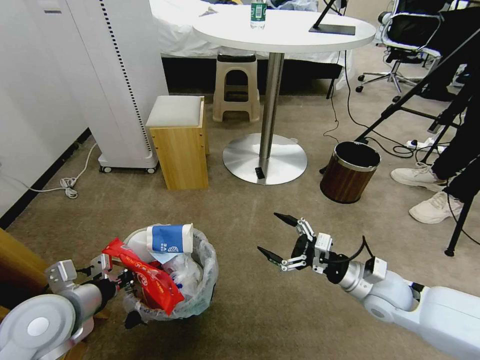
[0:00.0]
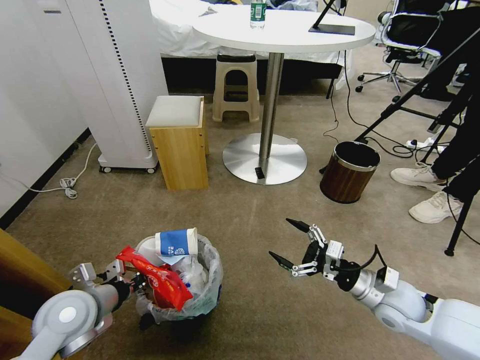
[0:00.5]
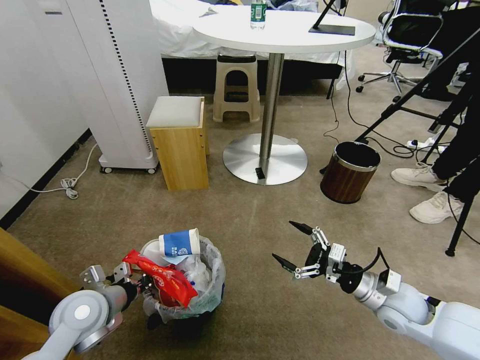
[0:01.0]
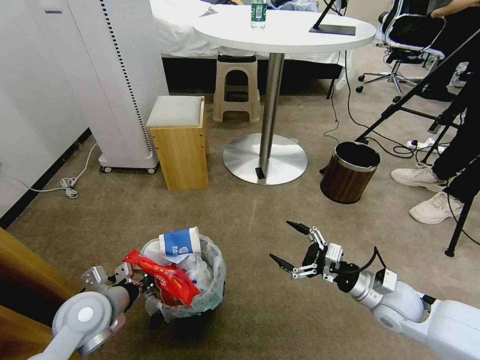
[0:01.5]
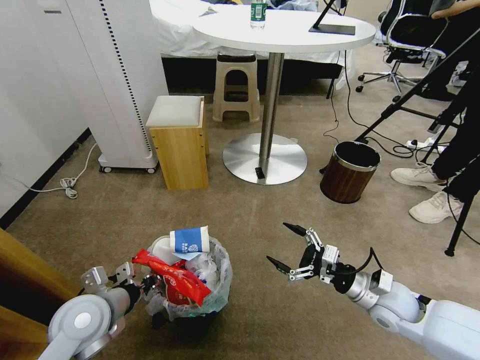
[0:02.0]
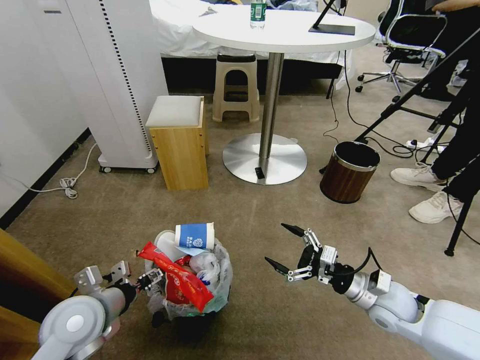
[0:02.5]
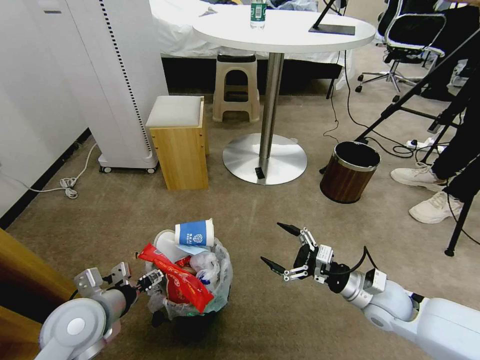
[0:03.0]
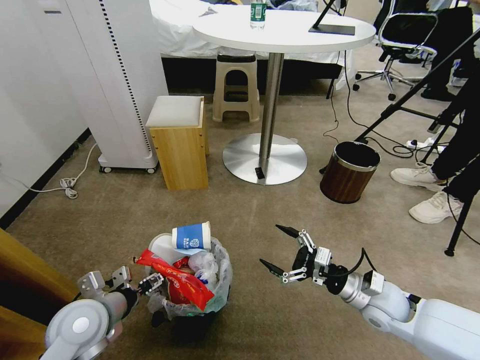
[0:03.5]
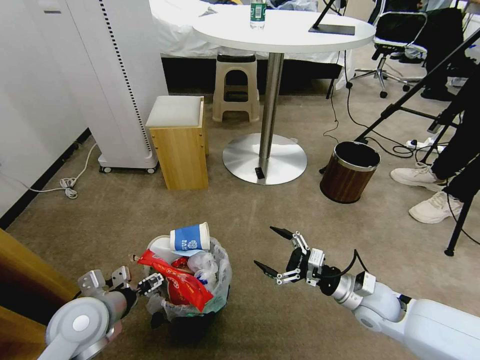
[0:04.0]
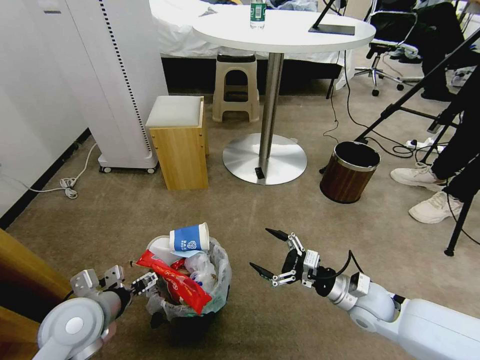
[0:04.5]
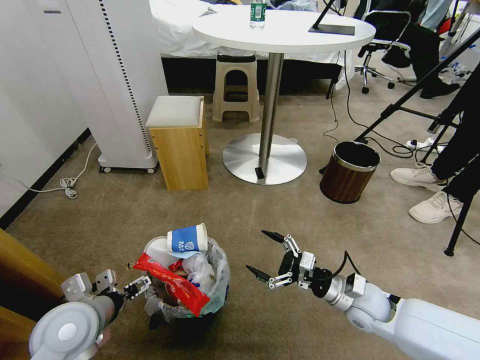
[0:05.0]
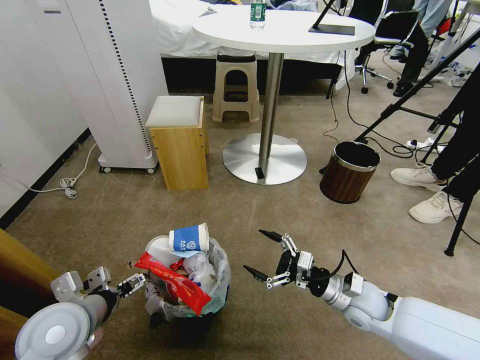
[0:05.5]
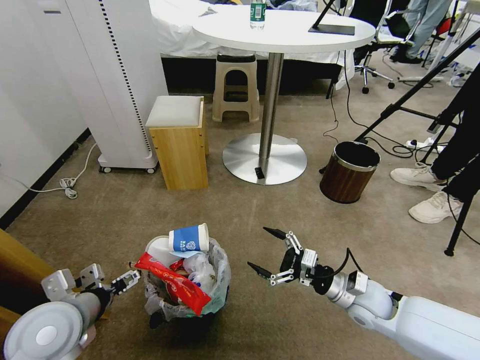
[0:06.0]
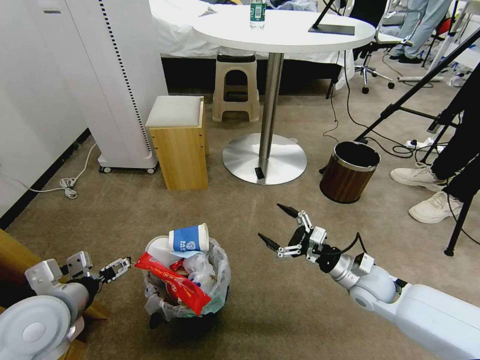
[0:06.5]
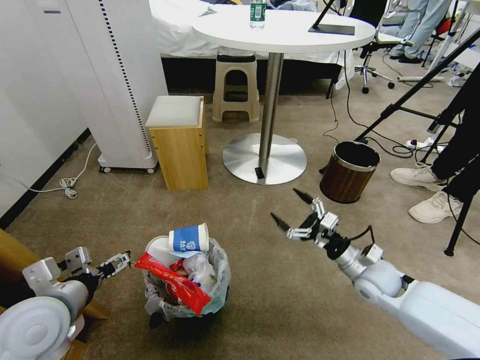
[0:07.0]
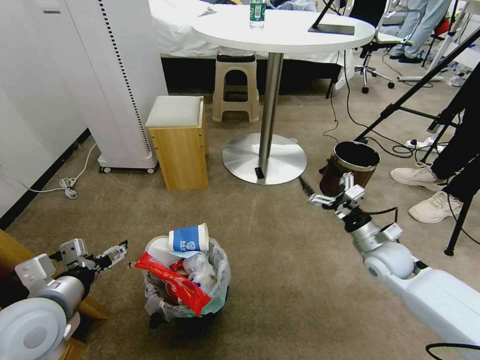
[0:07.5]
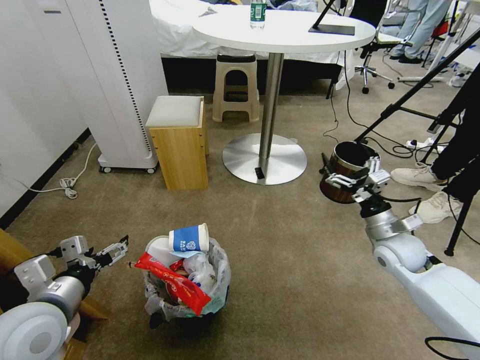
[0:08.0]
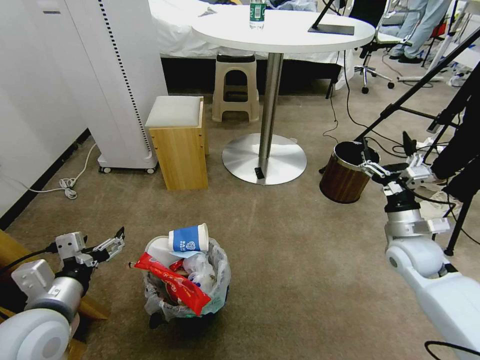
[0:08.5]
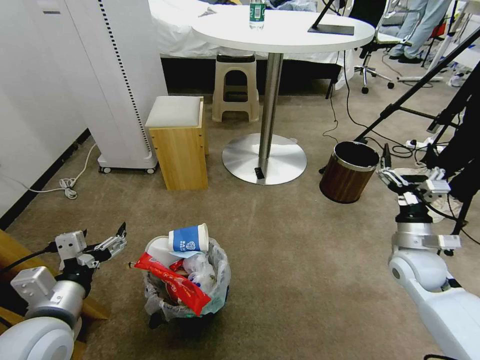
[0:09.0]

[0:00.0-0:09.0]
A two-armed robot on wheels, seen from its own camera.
Task of the whole recording: Pick up the trash bin and place the garbage on the floor into it.
0:00.0 to 0:02.0: The left gripper shifts roughly 5 cm downward, and opens up.
0:02.0 to 0:04.5: The left gripper opens.
0:04.5 to 0:07.0: The right gripper changes place by approximately 5 cm, while the left gripper goes approximately 5 cm upward.
0:07.0 to 0:09.0: The right gripper travels to the right by some 10 cm.

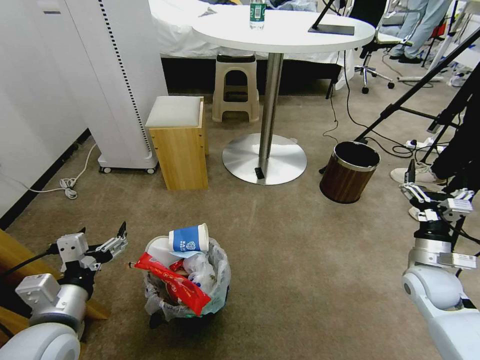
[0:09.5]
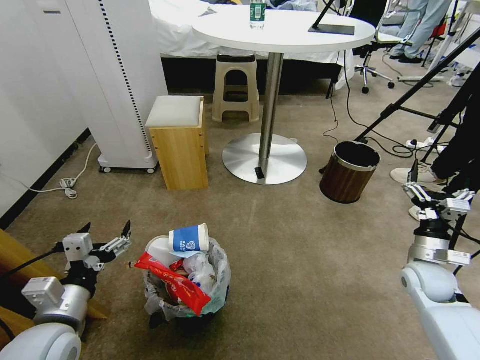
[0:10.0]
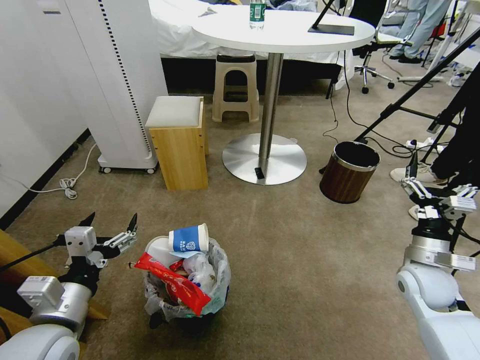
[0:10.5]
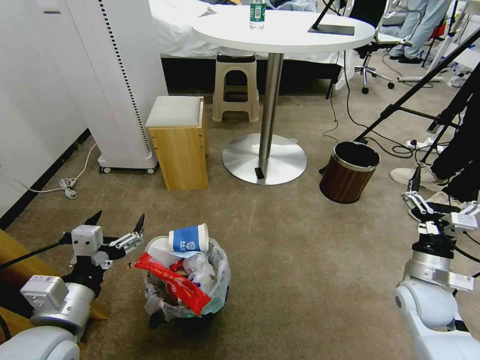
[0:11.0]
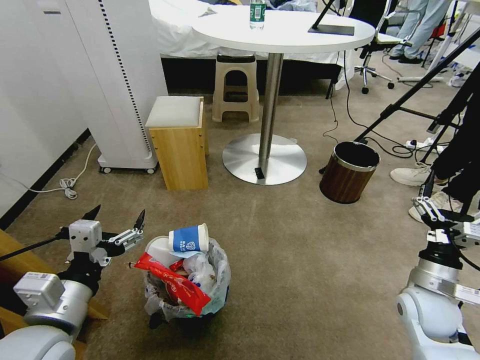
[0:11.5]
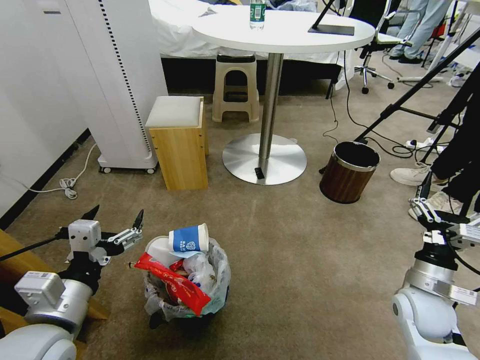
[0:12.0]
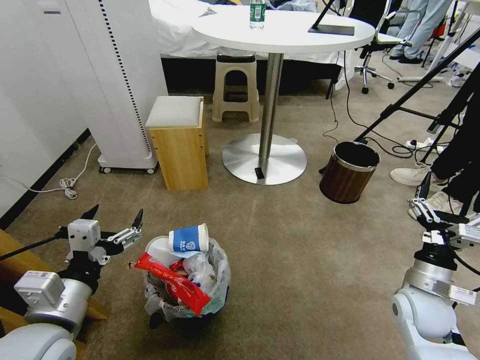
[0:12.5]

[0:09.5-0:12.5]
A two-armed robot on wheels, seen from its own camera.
Task of the whole recording: Pick up the trash bin and place the garbage on the floor into it.
0:09.5 to 0:11.0: The right gripper ends up approximately 5 cm from where it was.
0:11.0 to 0:12.5: There are only small adjustments of the grippers.

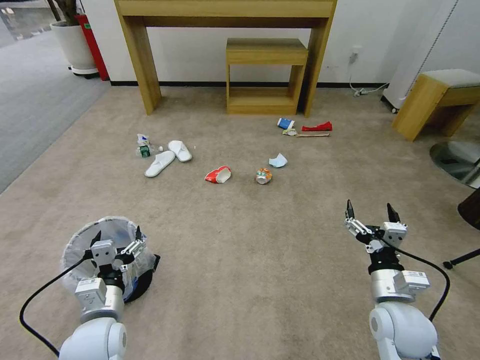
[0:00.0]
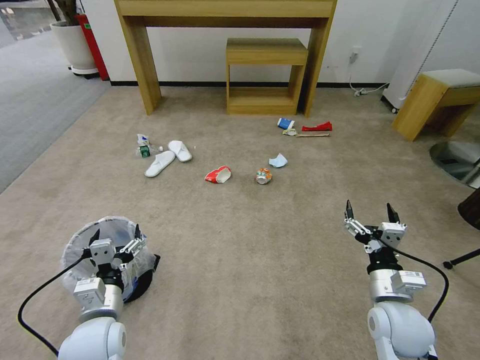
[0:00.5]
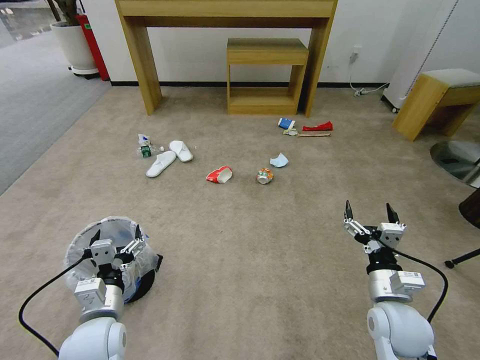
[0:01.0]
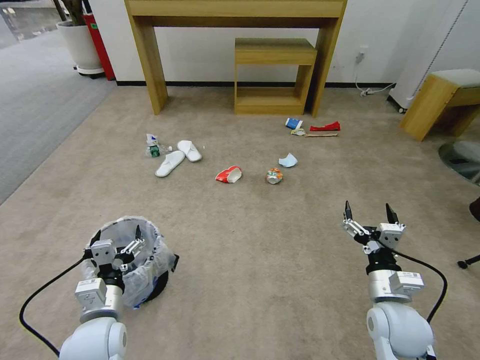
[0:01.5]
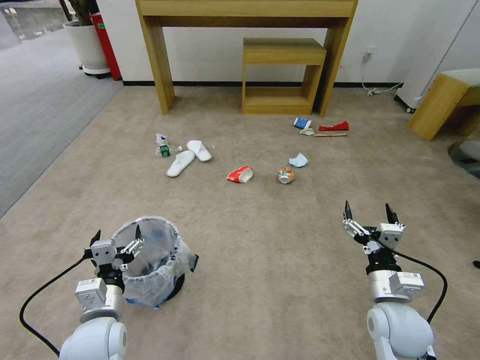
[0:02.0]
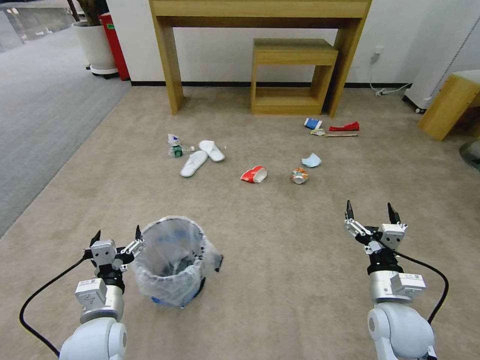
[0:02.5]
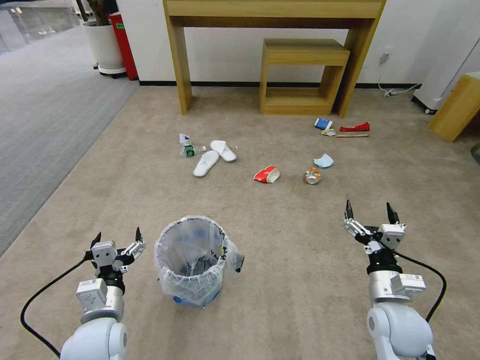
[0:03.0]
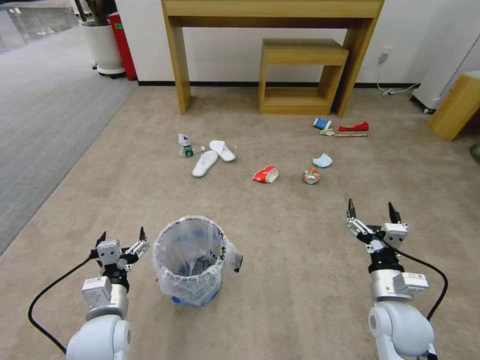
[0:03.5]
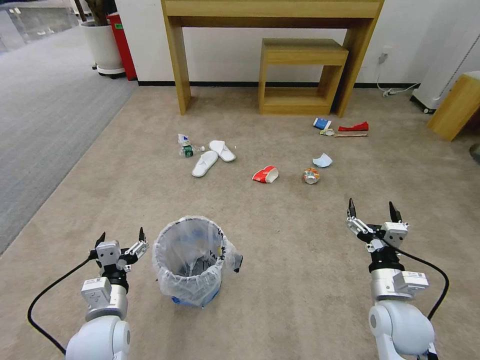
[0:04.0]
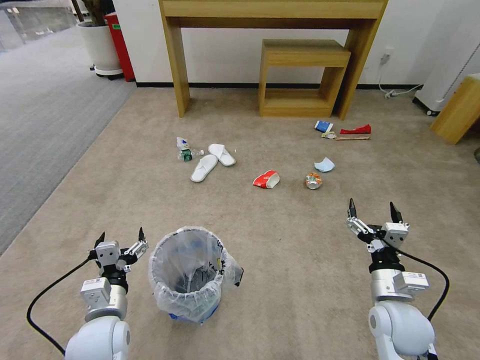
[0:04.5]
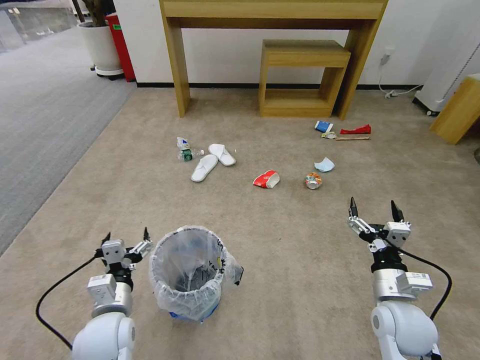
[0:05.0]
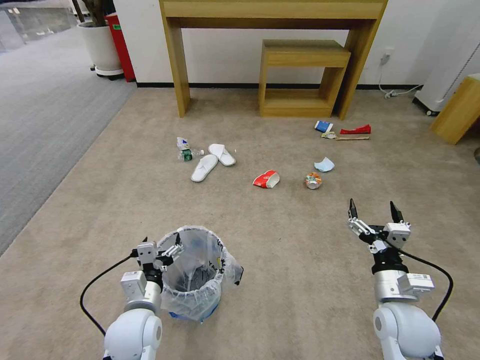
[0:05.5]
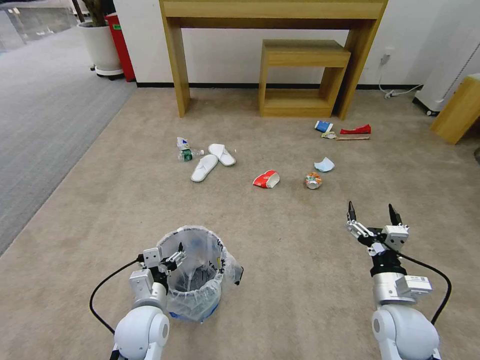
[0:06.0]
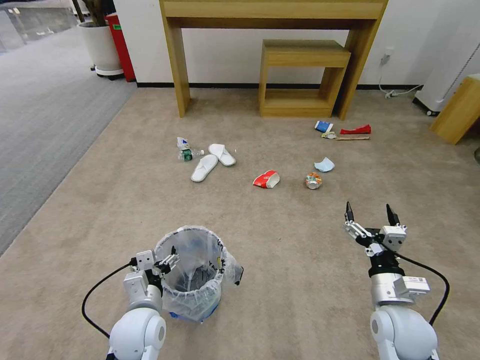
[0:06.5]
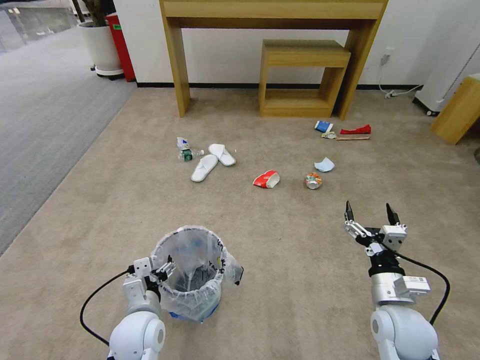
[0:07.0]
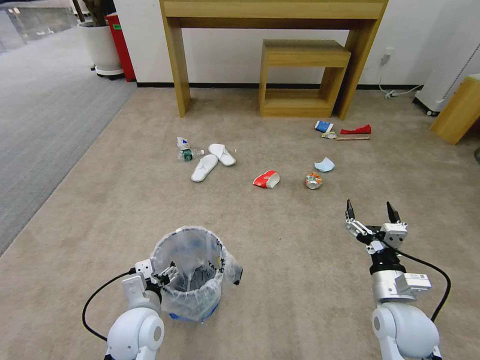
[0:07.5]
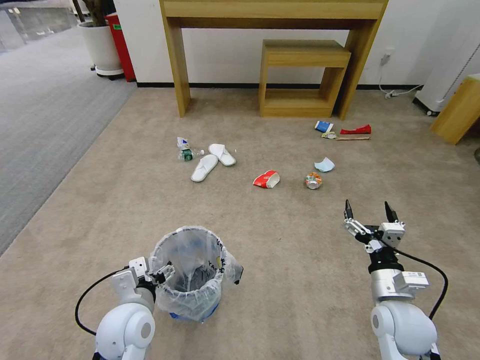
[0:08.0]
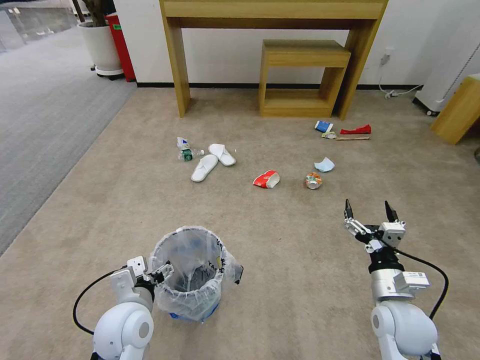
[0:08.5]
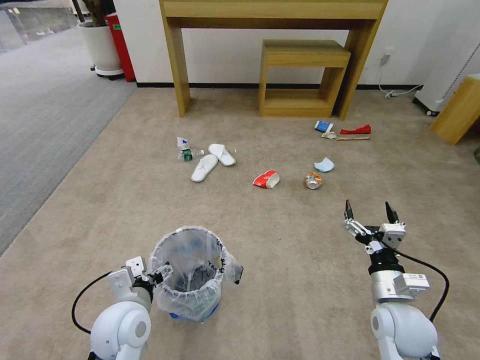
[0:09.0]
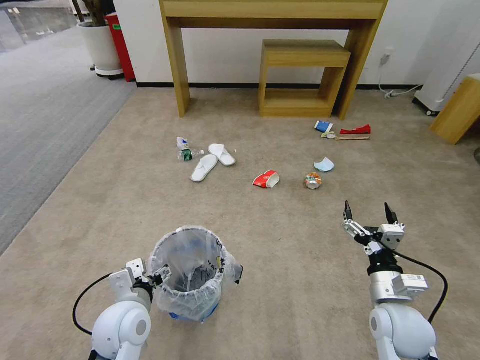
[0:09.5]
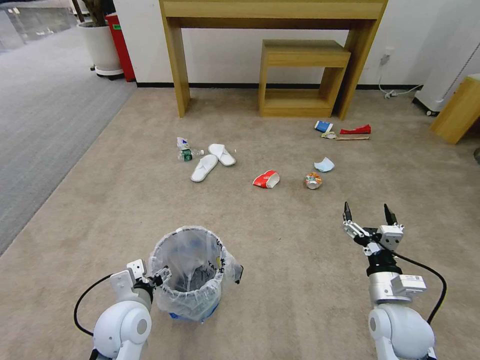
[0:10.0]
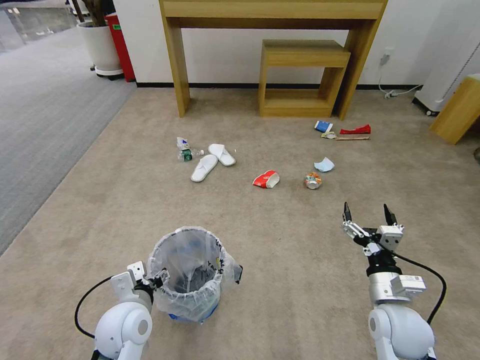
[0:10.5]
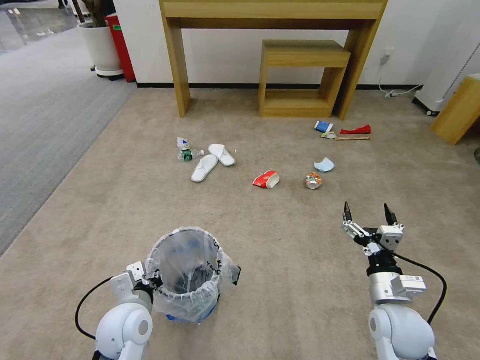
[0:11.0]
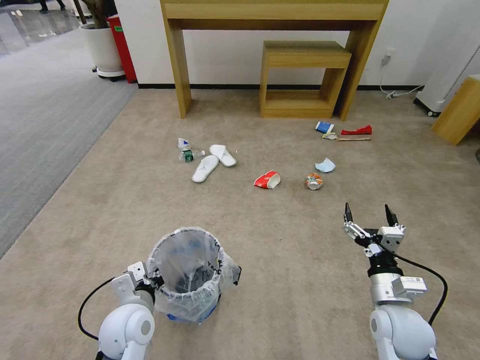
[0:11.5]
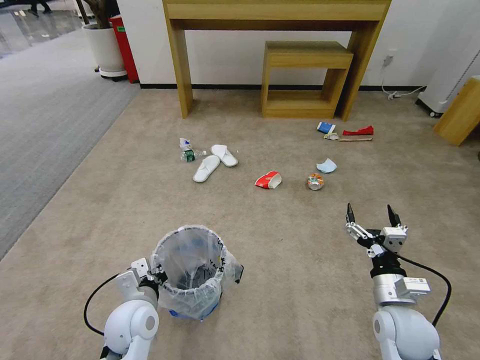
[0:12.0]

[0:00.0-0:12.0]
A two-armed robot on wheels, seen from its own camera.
Task of the whole recording: Pick up the trash bin and place the garbage on the floor into it.
0:04.0 to 0:06.0: The left gripper is displaced to the right by roughly 5 cm.
0:06.0 to 0:08.0: The grippers move only a little.
0:08.0 to 0:10.0: Both grippers stay about where they are.
0:10.0 to 0:12.0: The left gripper closes.

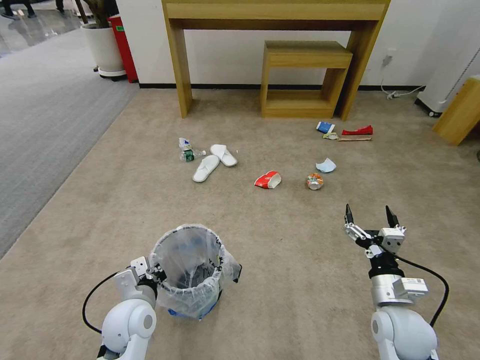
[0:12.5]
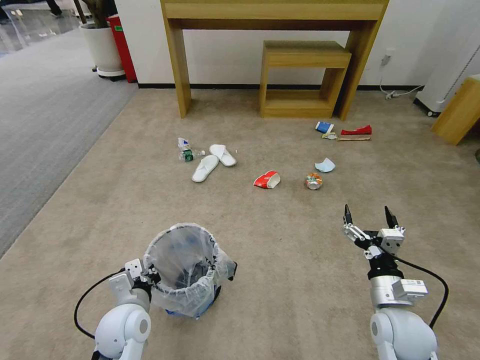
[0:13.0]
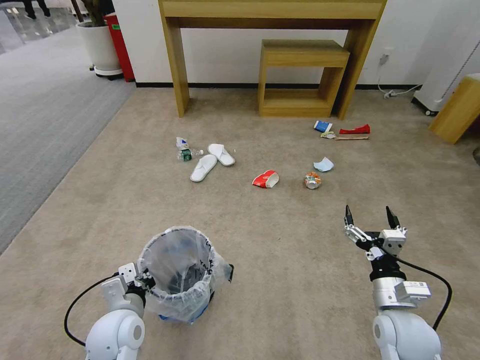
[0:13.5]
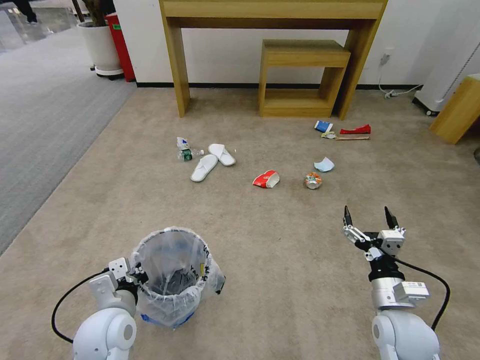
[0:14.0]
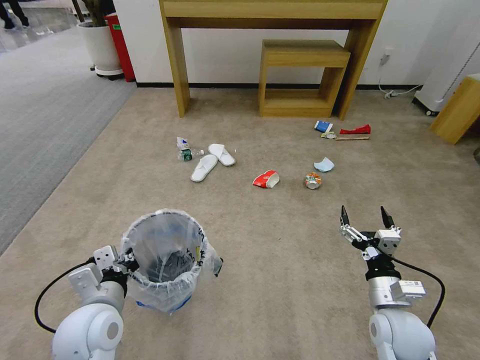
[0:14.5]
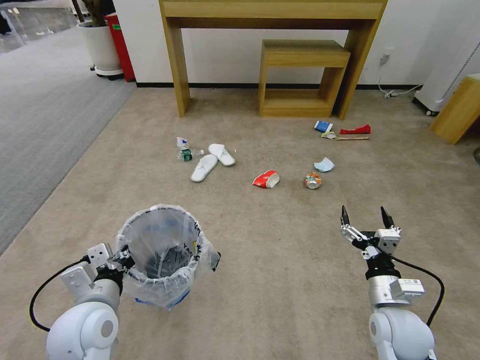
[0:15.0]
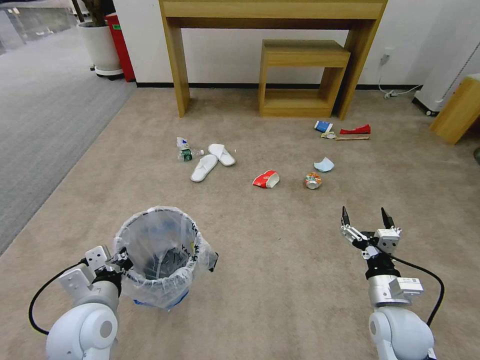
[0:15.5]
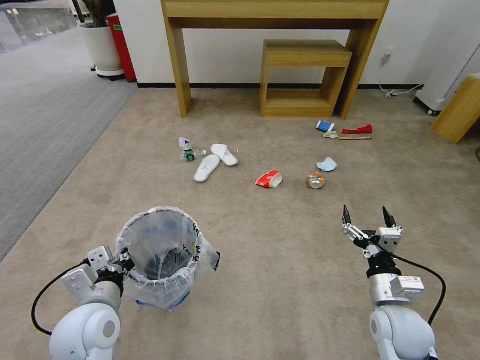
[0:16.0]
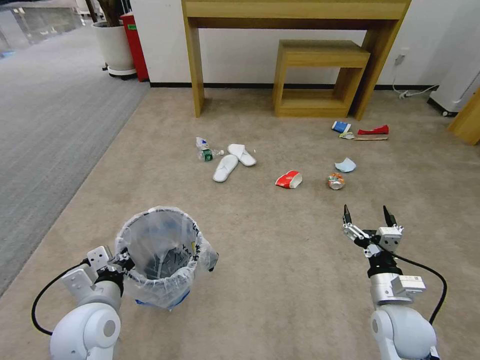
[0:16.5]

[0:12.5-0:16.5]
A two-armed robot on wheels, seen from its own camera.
Task of the whole recording: Pick up the trash bin and place the garbage on the floor into it.
0:12.5 to 0:14.5: The left gripper is displaced upward by some 10 cm.
0:14.5 to 0:16.5: The two grippers keep their place.
